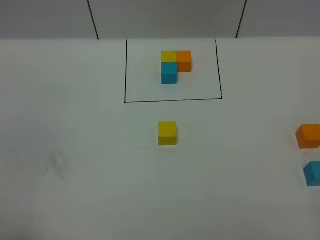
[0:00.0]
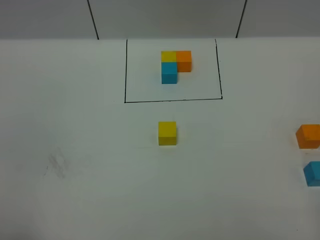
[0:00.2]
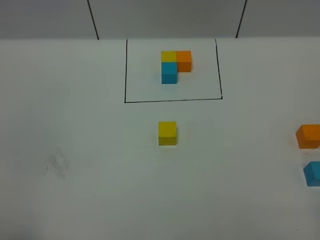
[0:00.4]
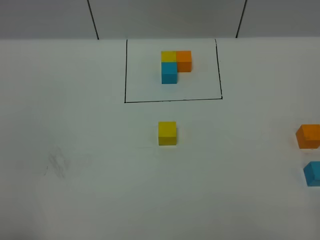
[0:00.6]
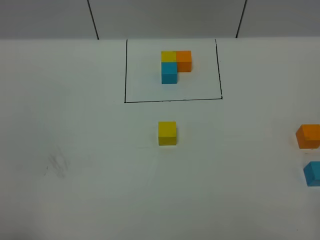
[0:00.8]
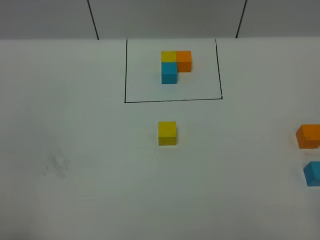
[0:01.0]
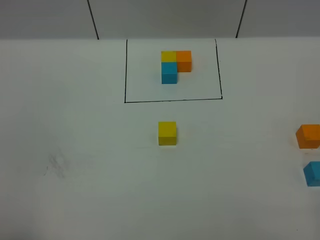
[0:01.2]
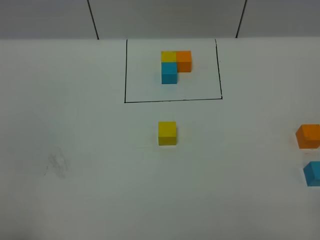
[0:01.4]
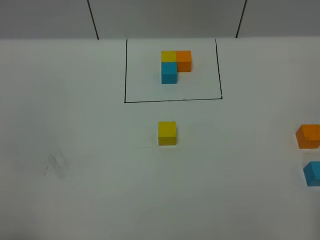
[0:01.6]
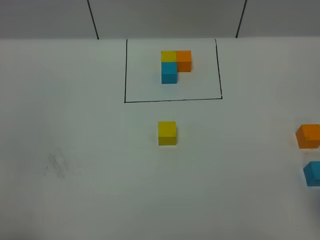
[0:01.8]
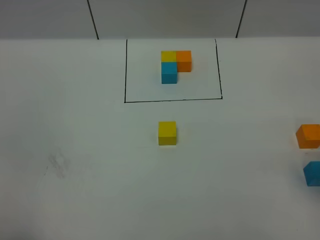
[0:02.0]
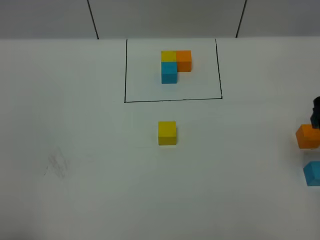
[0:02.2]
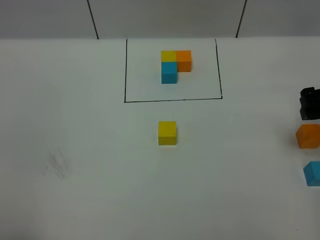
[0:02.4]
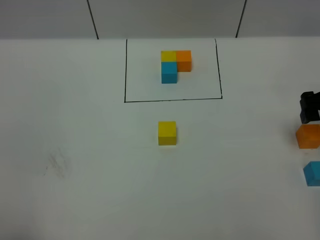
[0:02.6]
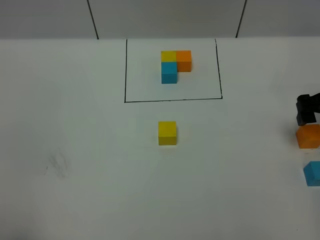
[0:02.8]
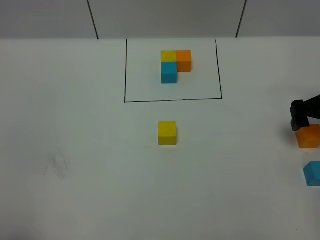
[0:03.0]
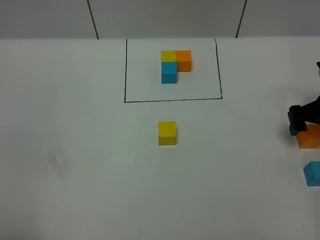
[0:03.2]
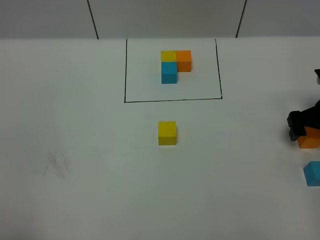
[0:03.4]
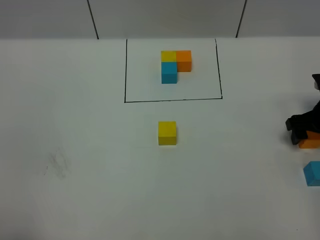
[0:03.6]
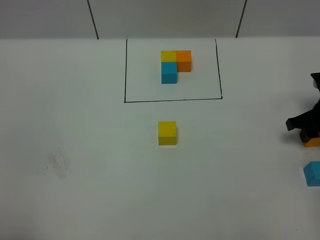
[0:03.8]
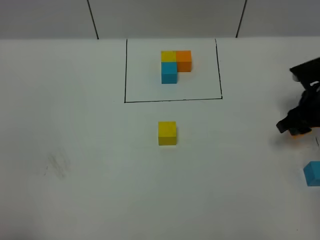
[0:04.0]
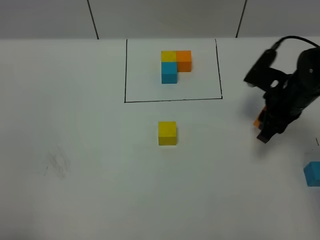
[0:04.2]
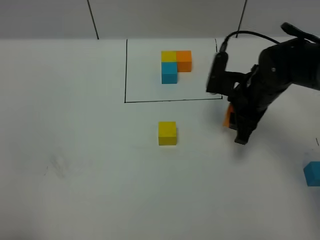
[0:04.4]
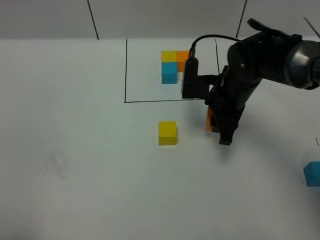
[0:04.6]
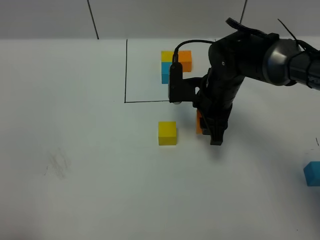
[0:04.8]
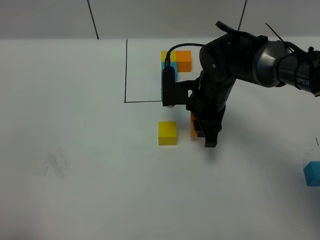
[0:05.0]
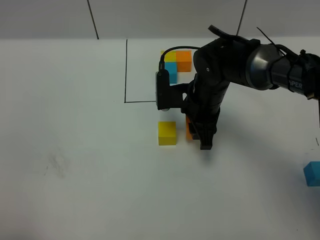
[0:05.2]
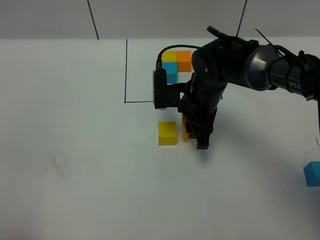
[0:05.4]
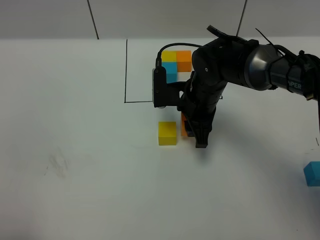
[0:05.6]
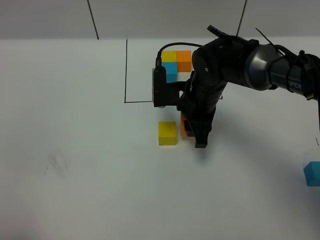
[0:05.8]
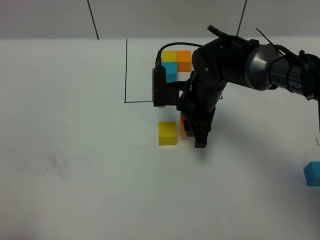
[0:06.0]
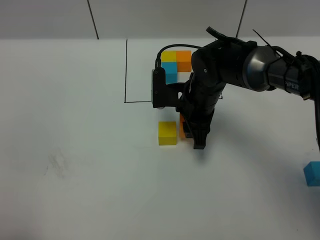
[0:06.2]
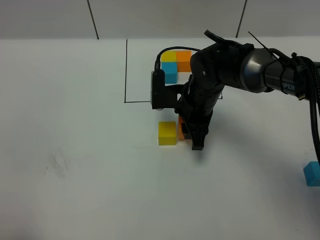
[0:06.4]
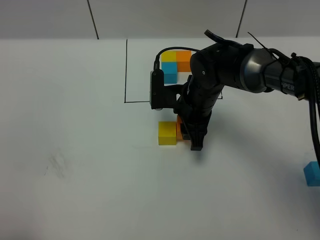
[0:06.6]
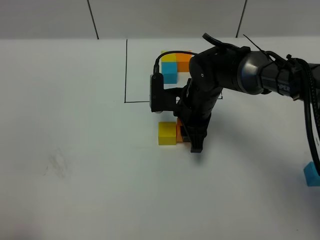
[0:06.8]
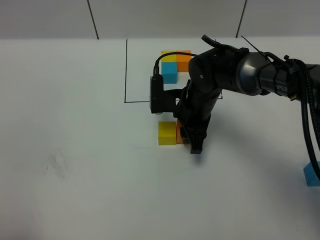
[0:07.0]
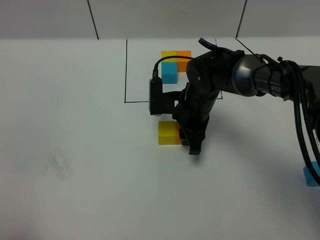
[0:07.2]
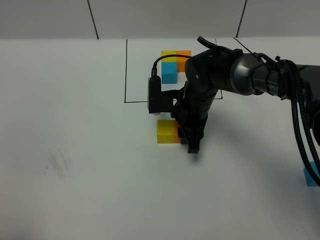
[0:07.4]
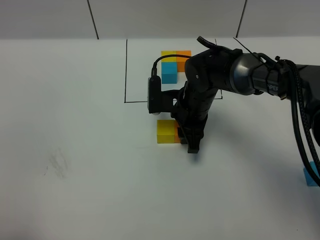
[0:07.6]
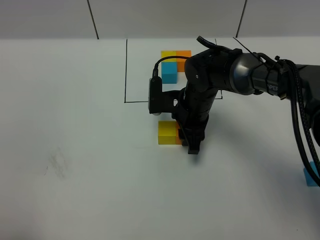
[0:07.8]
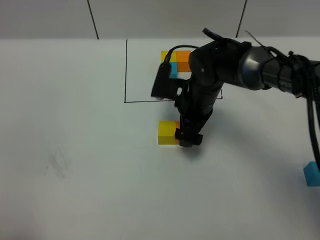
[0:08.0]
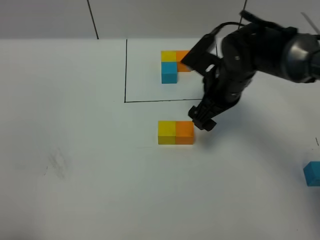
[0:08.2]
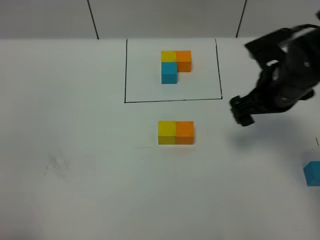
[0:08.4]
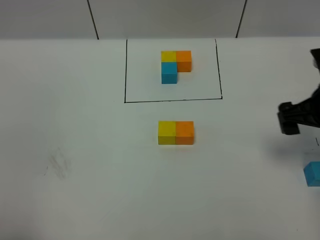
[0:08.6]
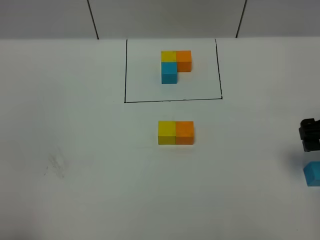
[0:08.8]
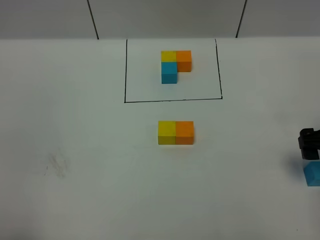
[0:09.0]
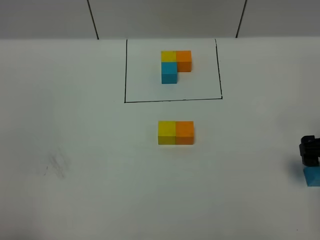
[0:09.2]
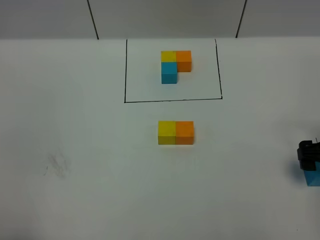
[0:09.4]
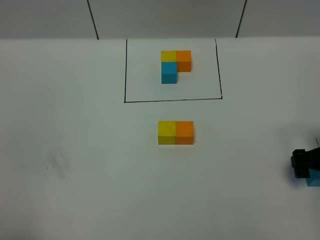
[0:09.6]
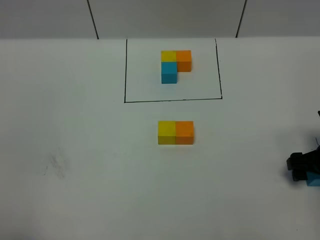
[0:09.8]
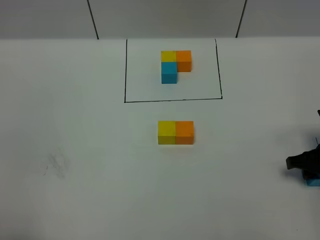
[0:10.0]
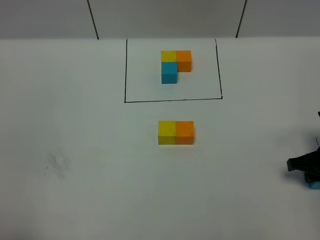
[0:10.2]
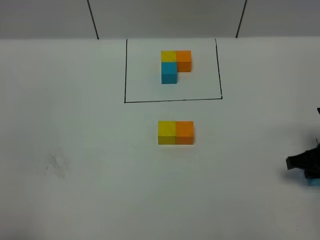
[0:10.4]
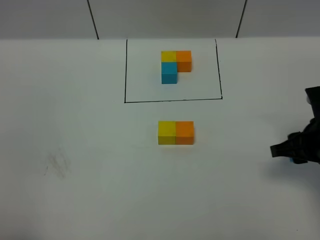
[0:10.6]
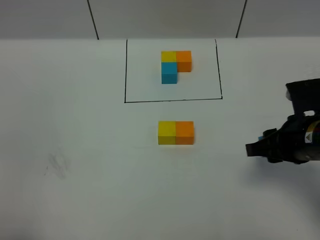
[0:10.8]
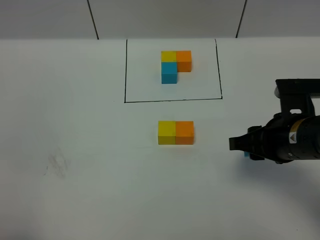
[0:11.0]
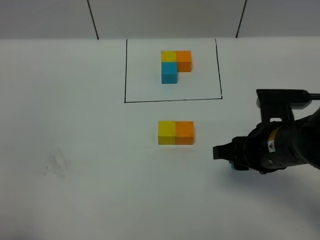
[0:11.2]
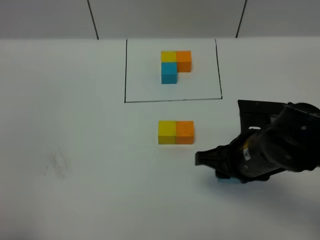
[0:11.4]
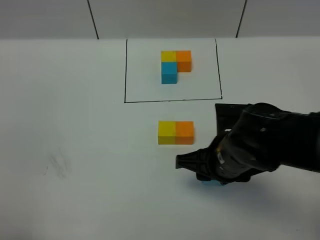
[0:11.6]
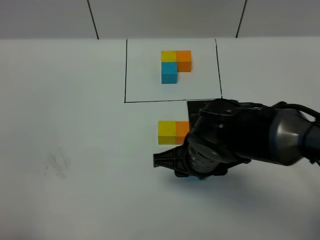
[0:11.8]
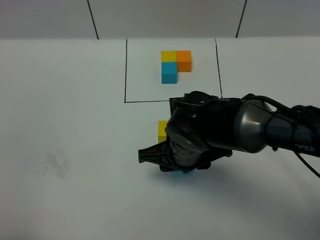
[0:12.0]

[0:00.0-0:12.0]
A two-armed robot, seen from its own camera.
Task of the whole recording: According to the building block template in front, assemble the scattered blocks together.
Step, 0:00.0 to 0:08.0: Put the orange cube on the right of the yellow cube.
0:01.6 to 0:03.0: The right gripper shifts roughly 30 cm forward and downward, and opens.
0:03.0 to 0:04.4: The right gripper shifts some 15 cm to the left, and closes its fingers.
0:04.4 to 0:06.0: The right gripper moves to the left, some 10 cm.
0:06.0 to 0:07.6: The grippers make only small movements.
0:07.6 to 0:09.0: The right gripper shifts approximately 25 cm to the right and backward, and opens up.
0:09.0 to 0:10.4: The right gripper shifts some 5 cm downward, and closes up.
0:10.4 to 0:12.0: The right gripper shifts roughly 25 cm to the left.

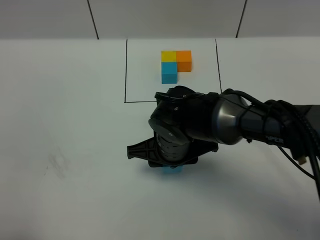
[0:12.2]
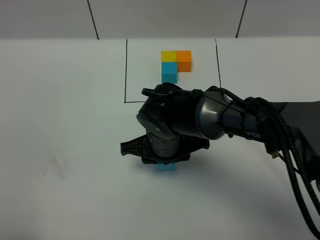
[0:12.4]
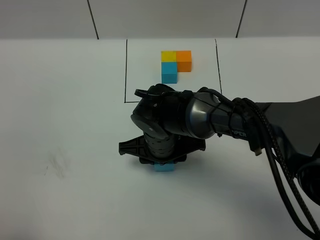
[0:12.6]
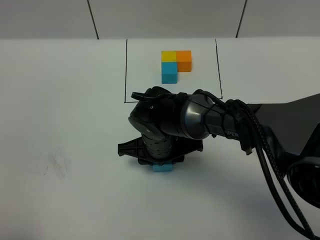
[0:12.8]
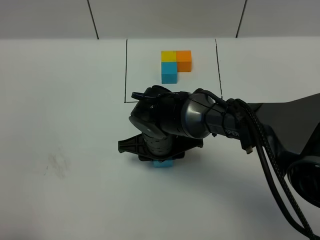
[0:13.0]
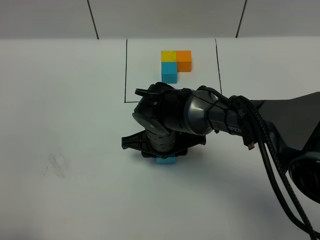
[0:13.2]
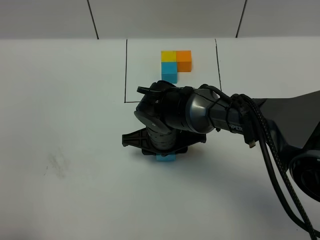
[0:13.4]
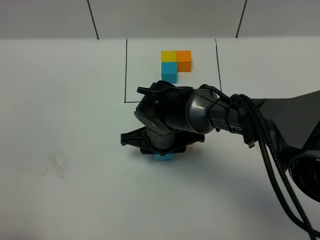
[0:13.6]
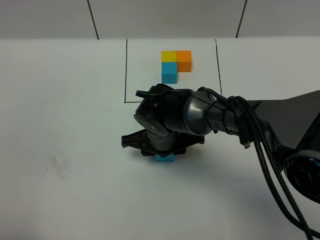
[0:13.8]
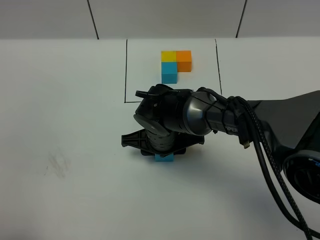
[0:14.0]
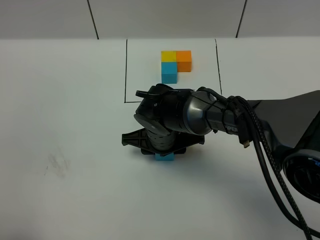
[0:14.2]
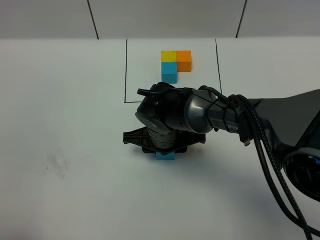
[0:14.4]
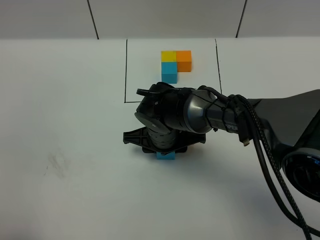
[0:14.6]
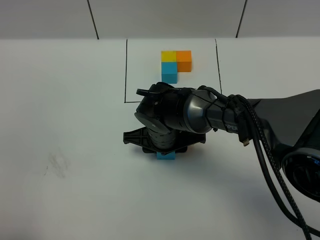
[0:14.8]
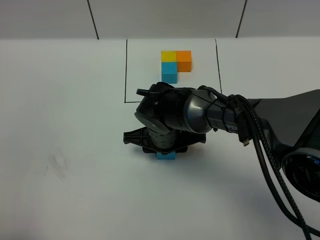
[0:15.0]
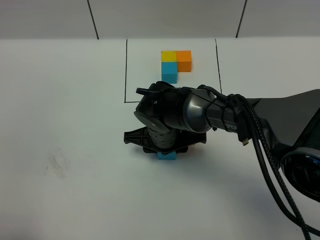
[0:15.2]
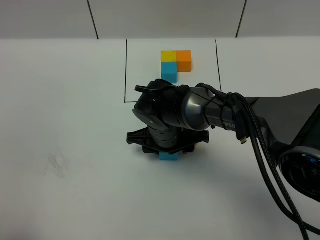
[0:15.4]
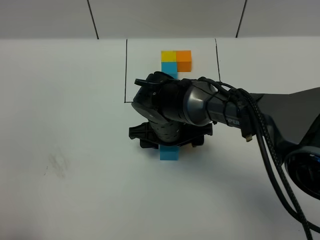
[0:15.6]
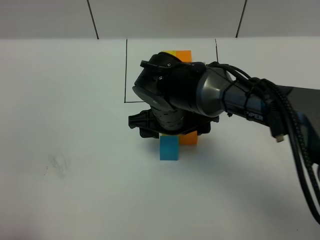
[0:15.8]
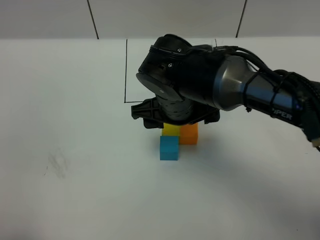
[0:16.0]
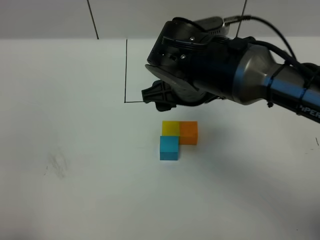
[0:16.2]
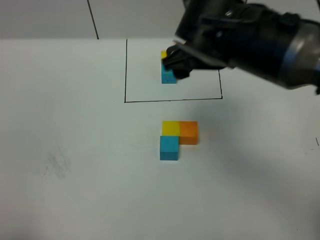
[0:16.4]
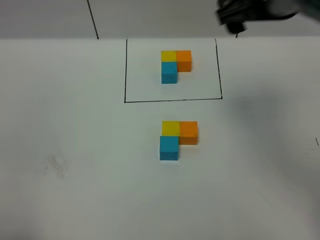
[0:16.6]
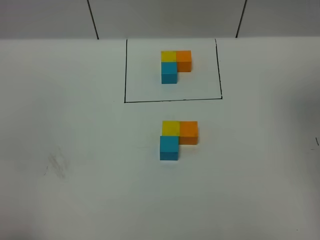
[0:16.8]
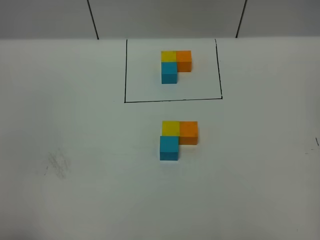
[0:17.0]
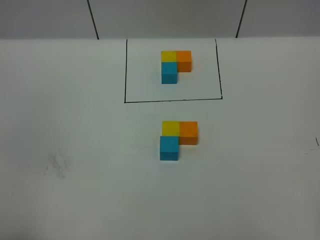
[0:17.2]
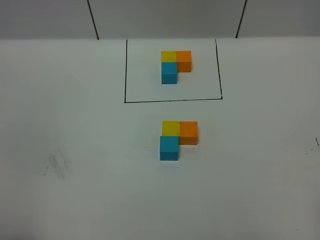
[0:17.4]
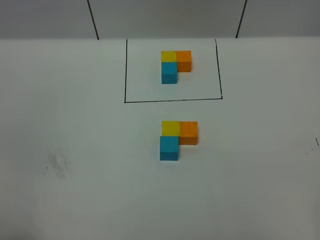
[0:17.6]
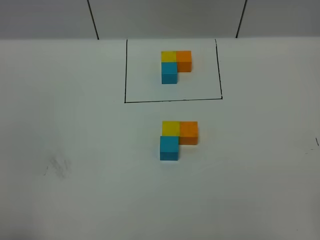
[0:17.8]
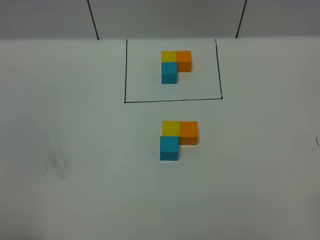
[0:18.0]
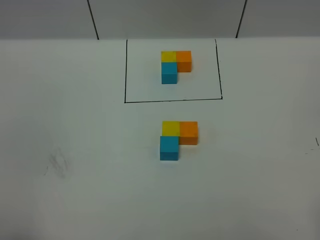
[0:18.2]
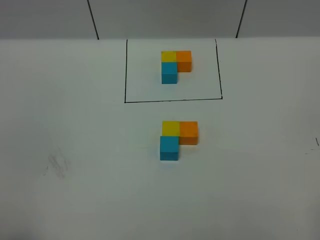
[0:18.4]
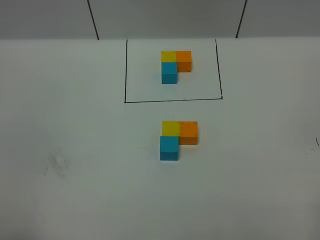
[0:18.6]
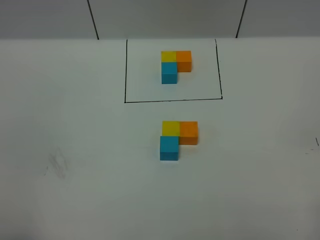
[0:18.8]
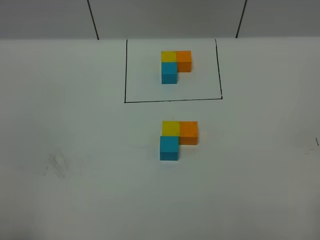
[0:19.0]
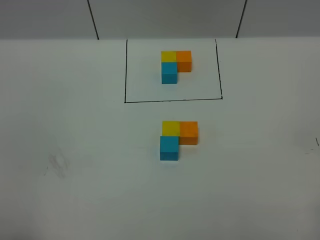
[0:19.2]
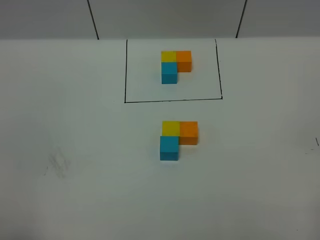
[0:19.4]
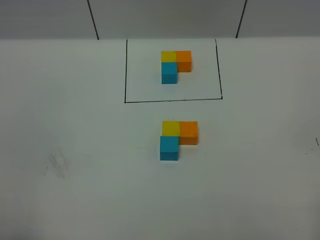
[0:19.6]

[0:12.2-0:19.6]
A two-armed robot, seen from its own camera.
Task of the whole recording: According to the building block template in front, assemble the scattered blocks together.
Step, 0:12.2 to 0:15.6: Put the blue cube in the front of the yellow cube.
0:12.2 to 0:13.6: The right gripper moves approximately 5 cm.
0:13.6 to 0:15.2: The two grippers keep their place.
0:15.2 to 0:16.6: The right gripper is displaced upward and to the right by some 35 cm, and opens up.
0:16.6 to 0:18.2: The right gripper shifts about 35 cm backward and to the right.
